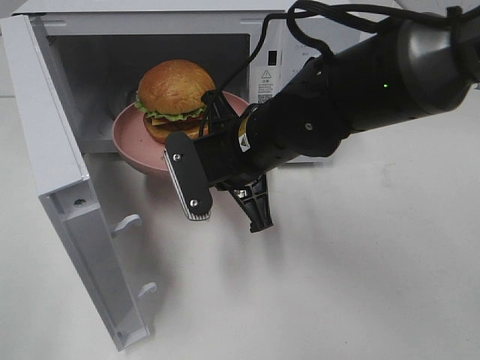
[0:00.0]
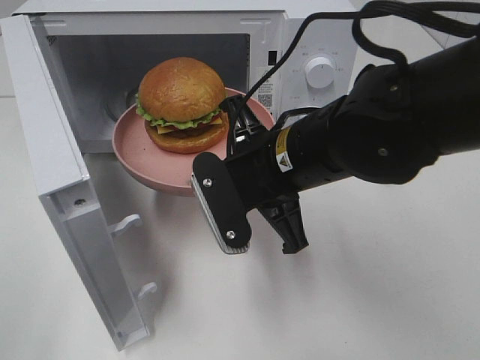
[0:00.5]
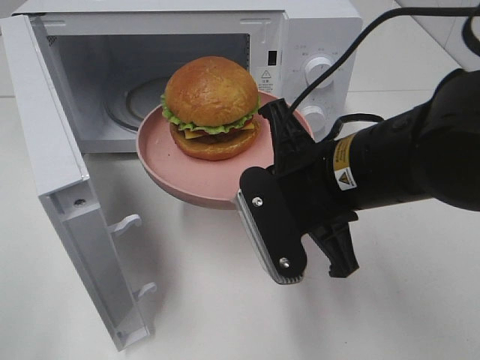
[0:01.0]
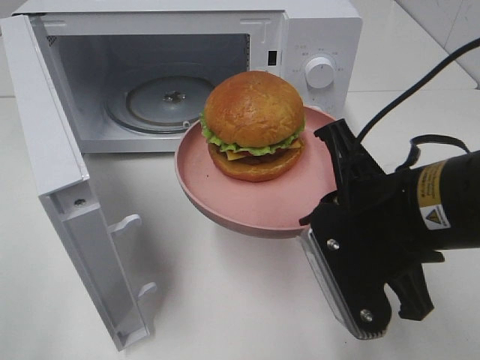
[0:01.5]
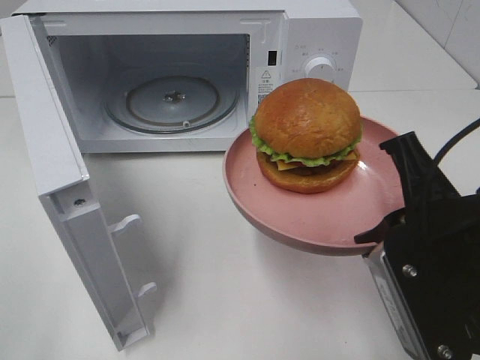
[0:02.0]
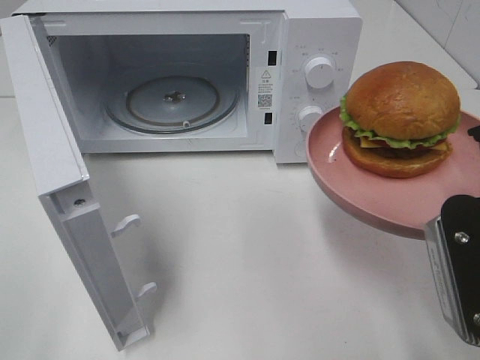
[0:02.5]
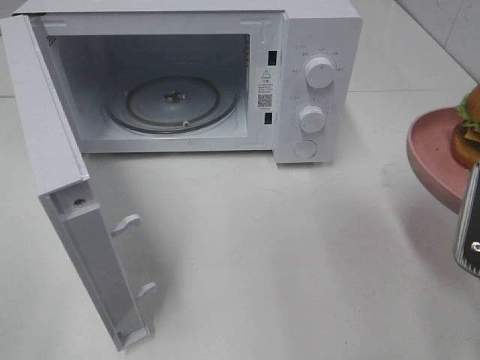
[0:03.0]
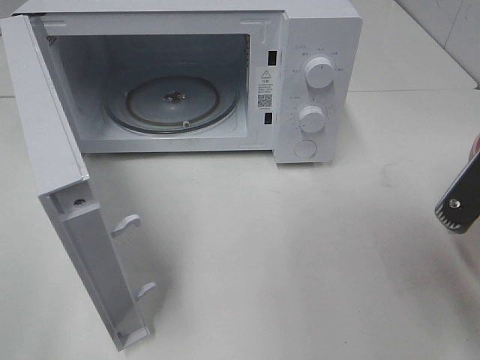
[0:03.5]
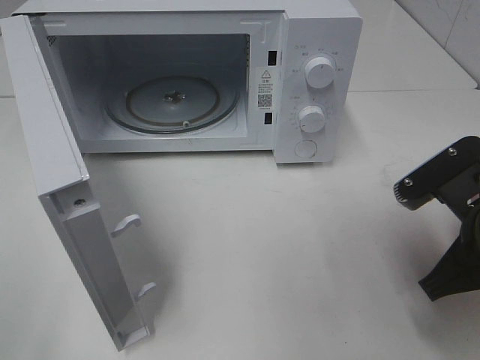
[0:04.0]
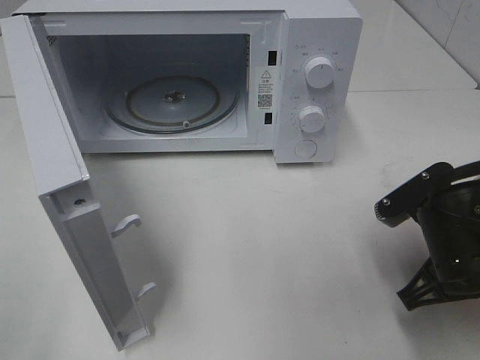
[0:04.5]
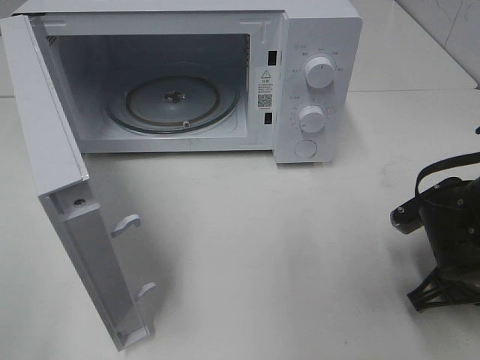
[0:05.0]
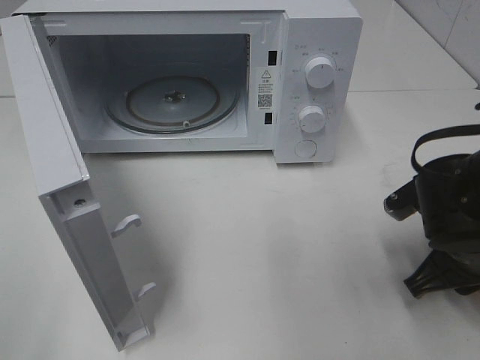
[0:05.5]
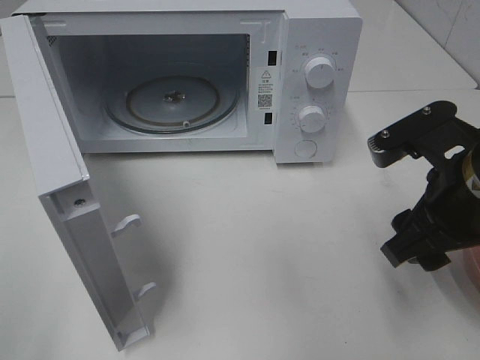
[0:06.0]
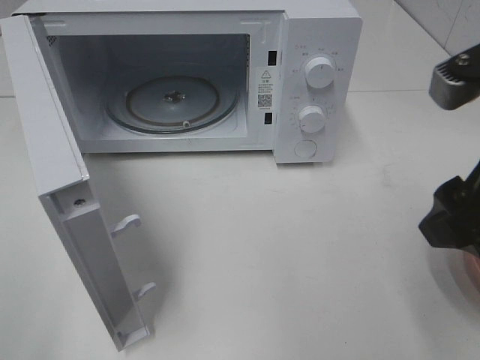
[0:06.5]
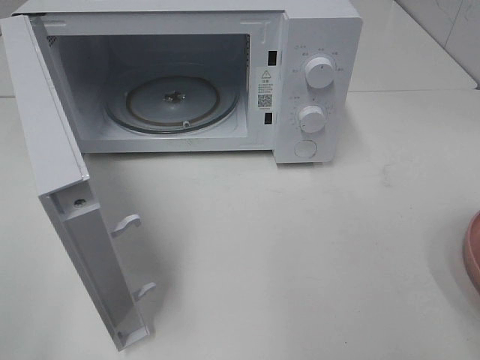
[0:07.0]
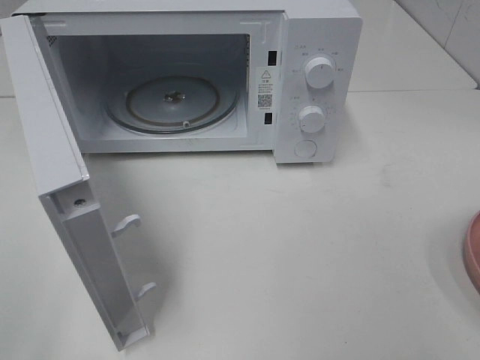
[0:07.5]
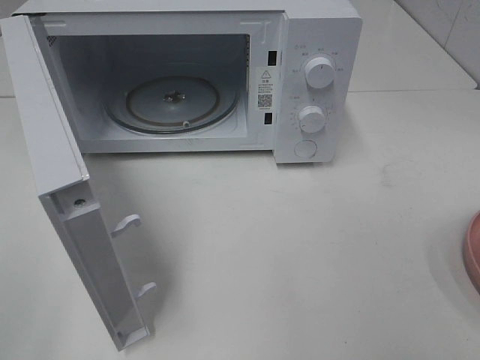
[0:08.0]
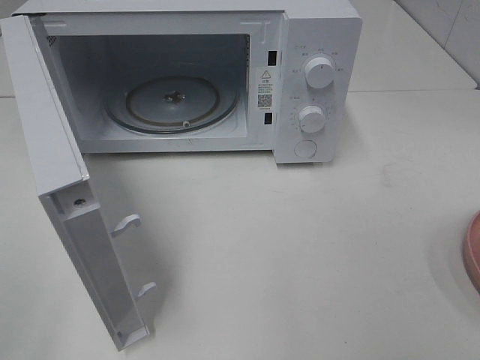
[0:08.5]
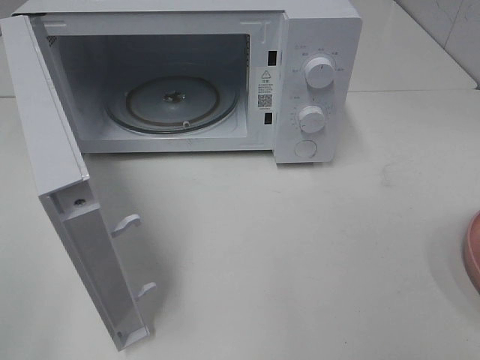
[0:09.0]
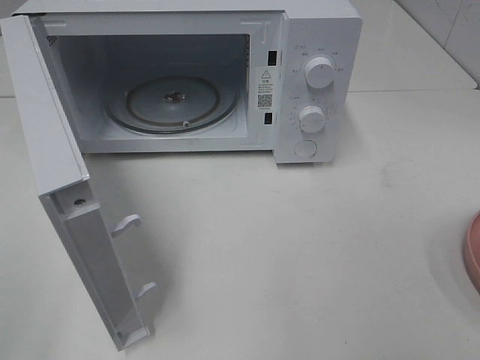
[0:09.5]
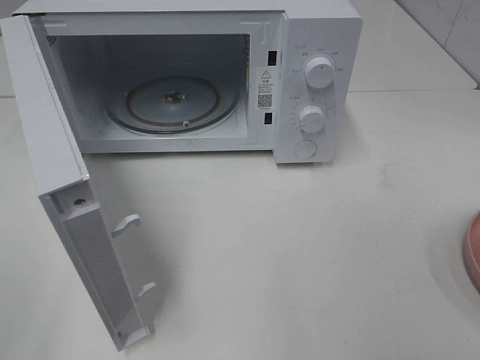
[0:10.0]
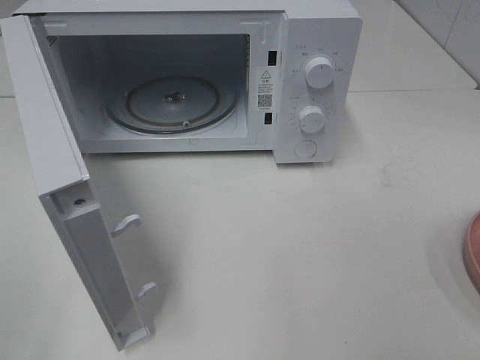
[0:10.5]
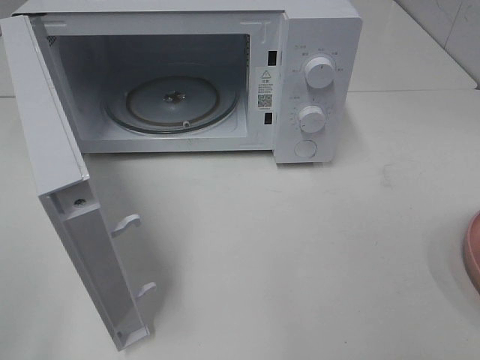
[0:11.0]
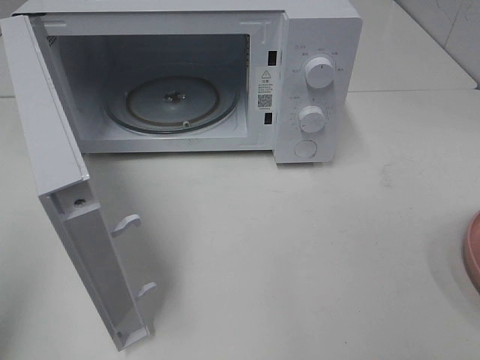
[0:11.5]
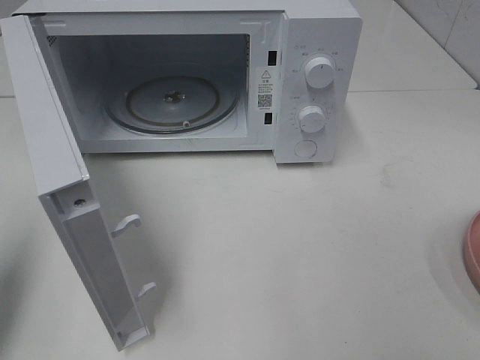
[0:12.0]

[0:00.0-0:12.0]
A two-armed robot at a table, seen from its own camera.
Task of the whole recording: Heat the burger.
Step, 0:00.0 to 0:05.5: Right hand: place the plate on the table.
0:00.0 to 0:02.0: The right gripper heads backward and to the right, covering about 20 cm.
0:02.0 to 0:04.0: The right gripper goes about 5 cm downward.
0:04.0 to 0:06.0: The right gripper opens.
0:06.0 to 0:08.0: The right gripper travels backward, to the right and upward by about 20 cm.
0:10.0 to 0:12.0: The left gripper goes some 15 cm forward, and closes up.

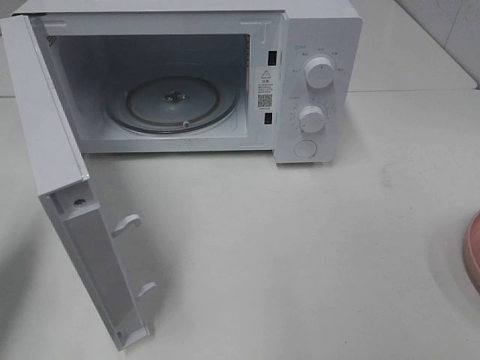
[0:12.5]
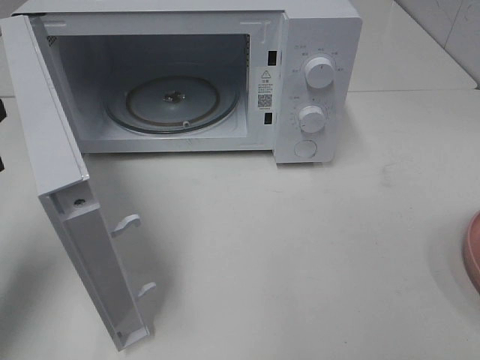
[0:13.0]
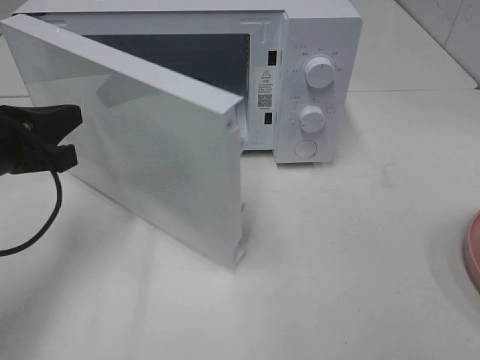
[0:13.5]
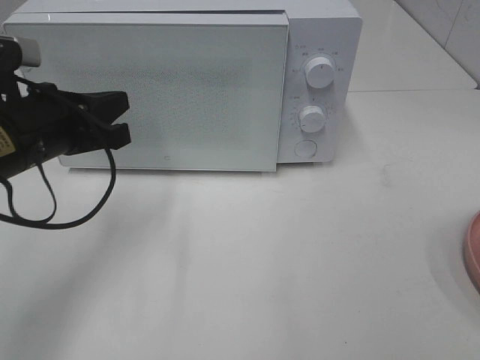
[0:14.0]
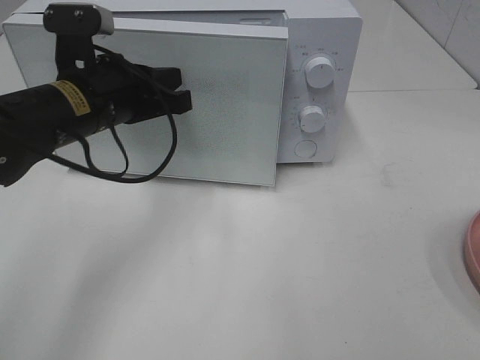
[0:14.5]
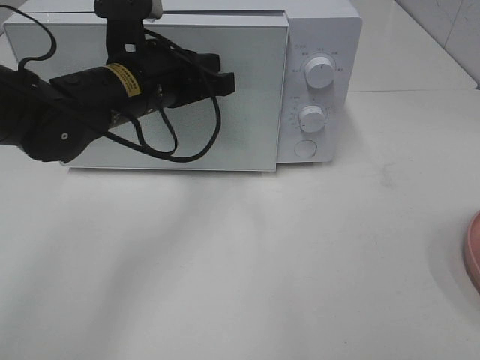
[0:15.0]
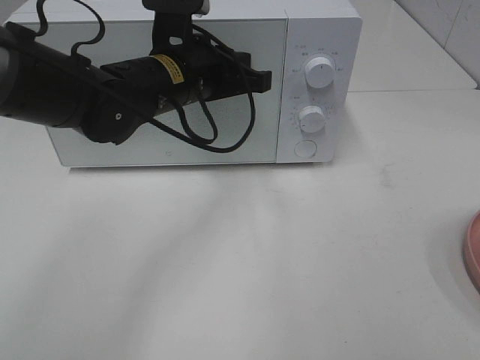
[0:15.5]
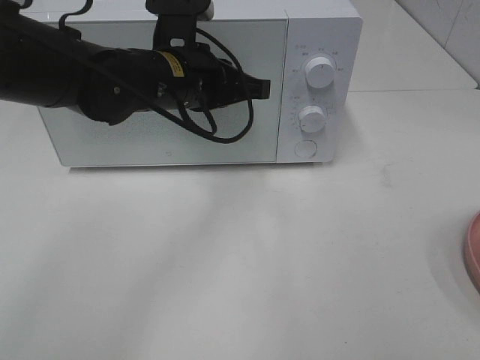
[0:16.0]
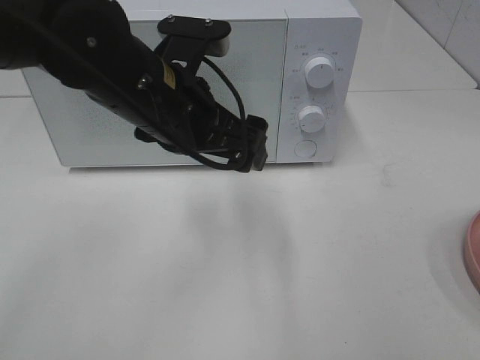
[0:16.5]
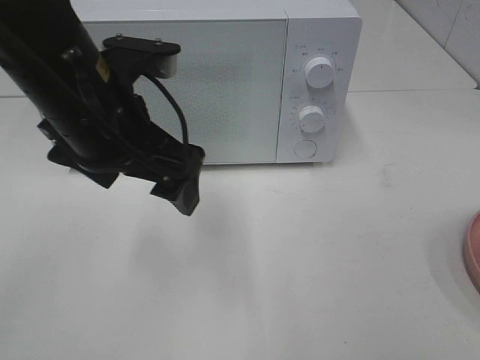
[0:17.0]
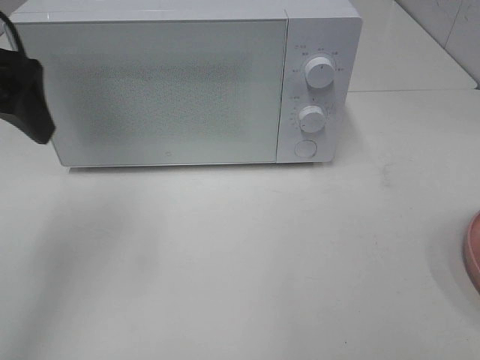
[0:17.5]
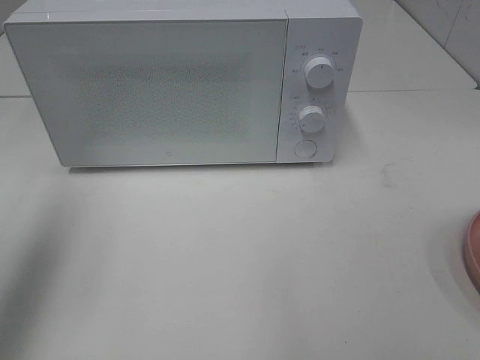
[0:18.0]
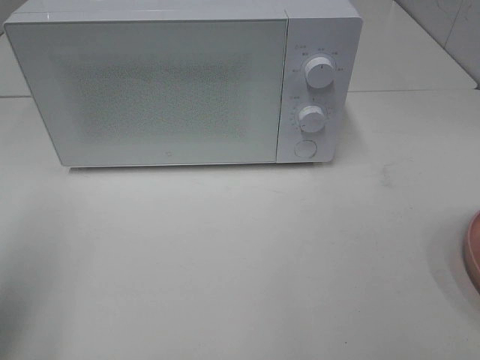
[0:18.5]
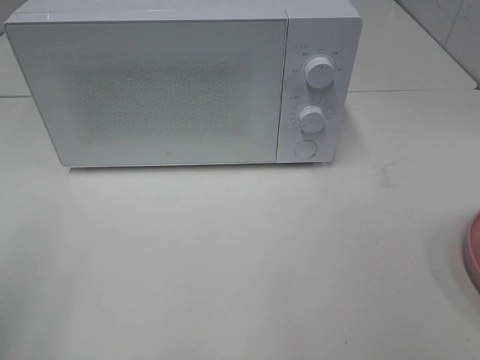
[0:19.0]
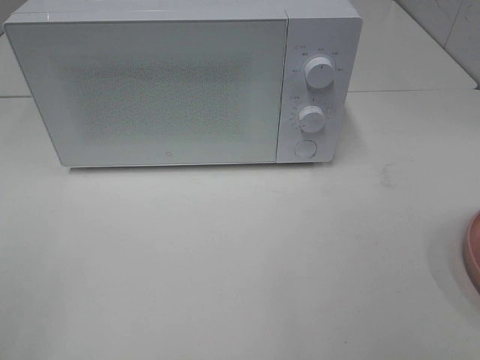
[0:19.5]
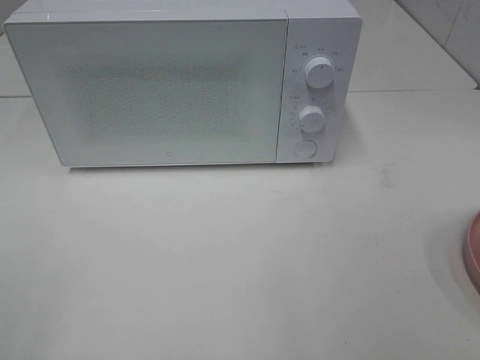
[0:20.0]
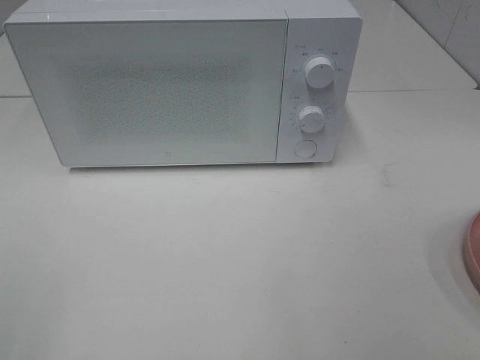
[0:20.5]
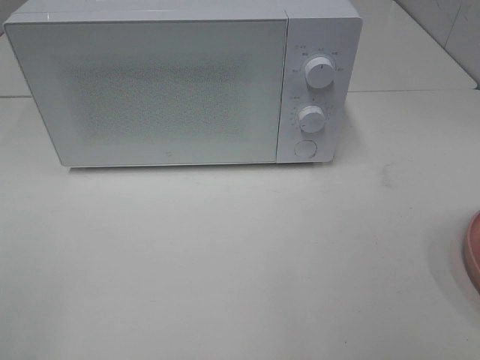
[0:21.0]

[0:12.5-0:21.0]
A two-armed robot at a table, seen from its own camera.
Task of the whole recording: Heat the burger.
Step, 0:12.5 to 0:16.0: Left hand: close the microwave door.
0:12.5 to 0:14.5: The left gripper moves to the right and forward, approximately 20 cm.
0:14.5 to 0:16.5: The left gripper travels to the right by some 10 cm, and opens up.
0:16.5 to 0:19.0: The left gripper shifts roughly 35 cm to the left and backward.

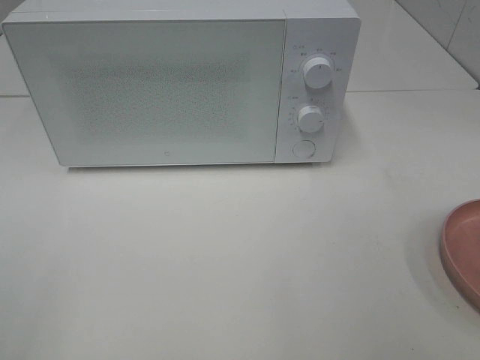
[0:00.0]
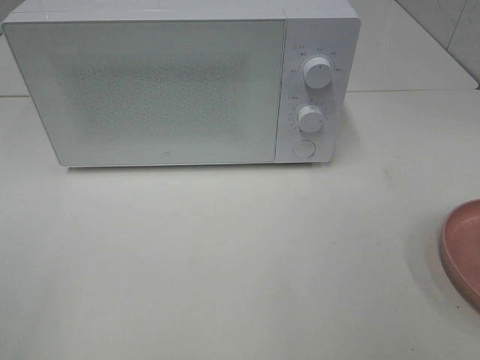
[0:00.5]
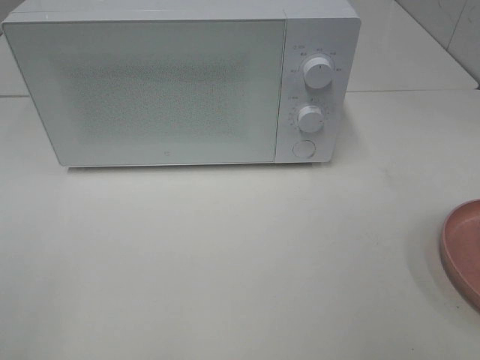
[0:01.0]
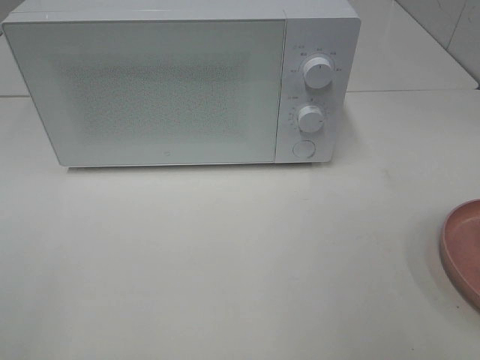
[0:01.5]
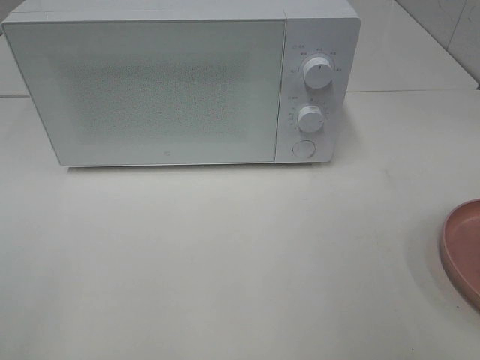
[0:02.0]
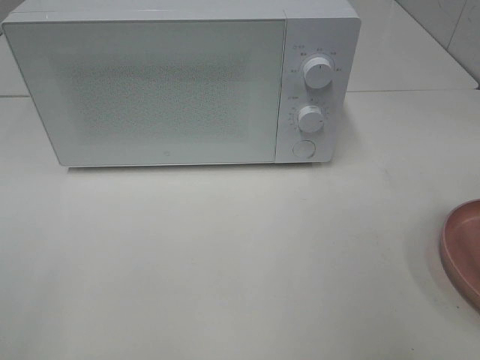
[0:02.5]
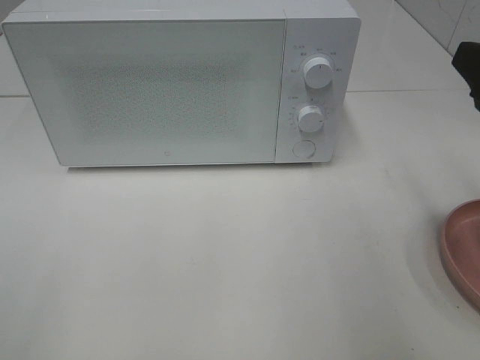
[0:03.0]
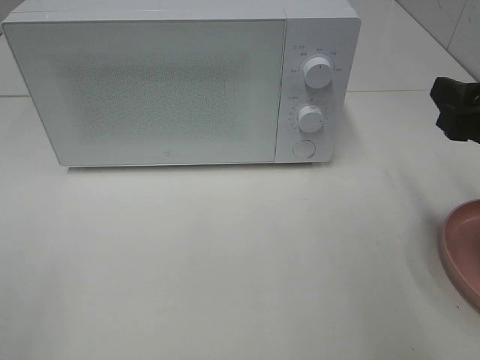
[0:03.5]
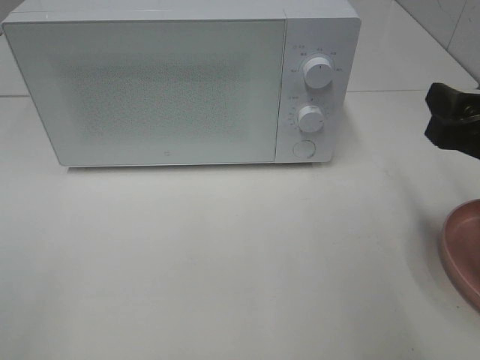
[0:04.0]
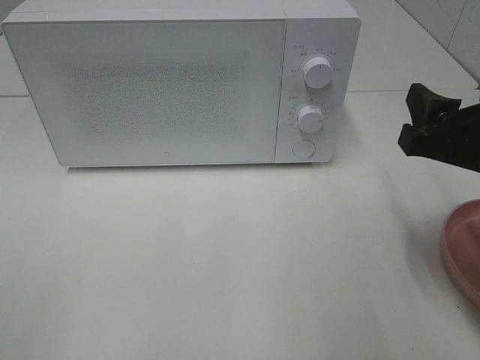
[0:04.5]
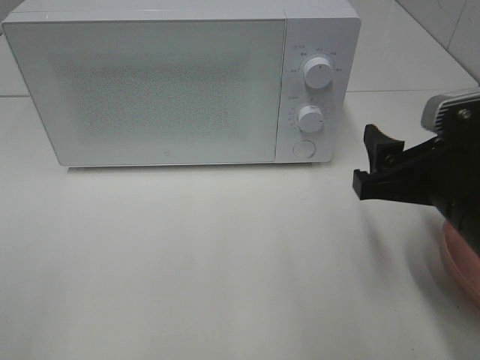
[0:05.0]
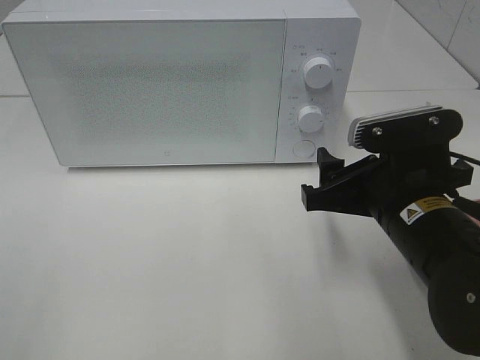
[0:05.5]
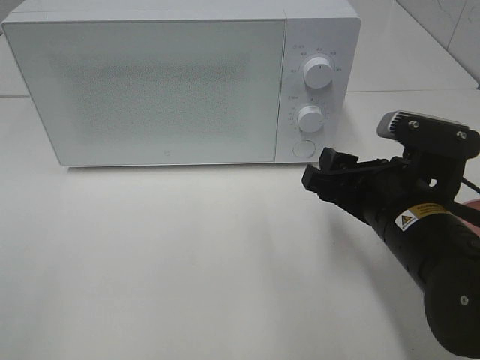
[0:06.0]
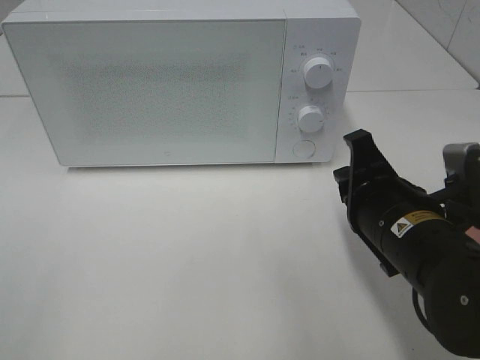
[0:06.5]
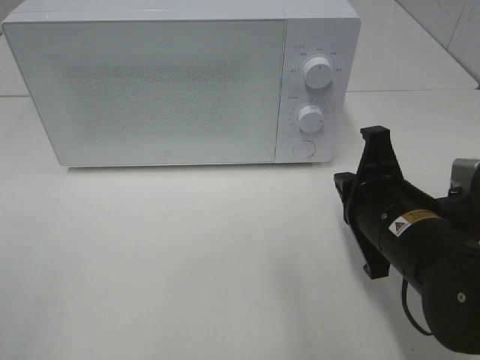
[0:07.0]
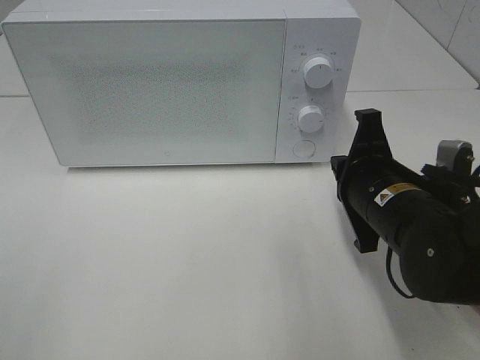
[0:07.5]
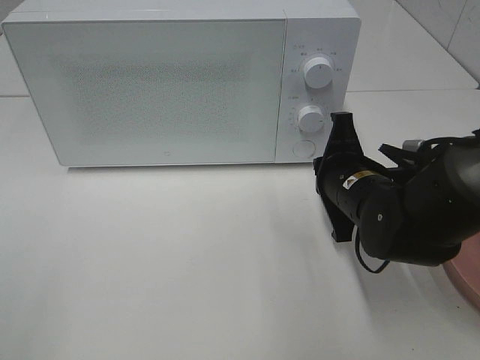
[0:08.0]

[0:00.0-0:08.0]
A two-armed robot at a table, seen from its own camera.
Task of the whole recording: Heat the burger.
0:02.0 to 0:04.0: The right gripper travels forward and downward by approximately 15 cm.
0:04.0 to 0:06.0: The right gripper shifts approximately 10 cm to the left and downward.
0:06.0 to 0:08.0: The right gripper travels forward by about 10 cm, and closes up.
